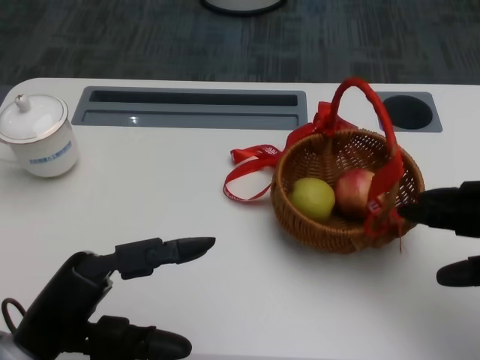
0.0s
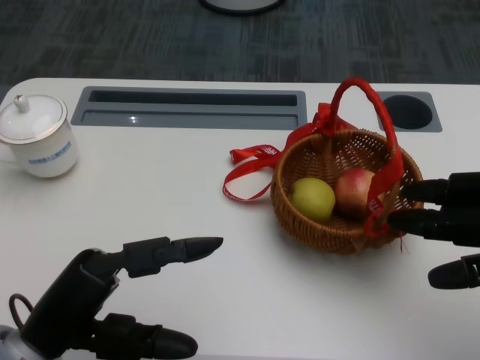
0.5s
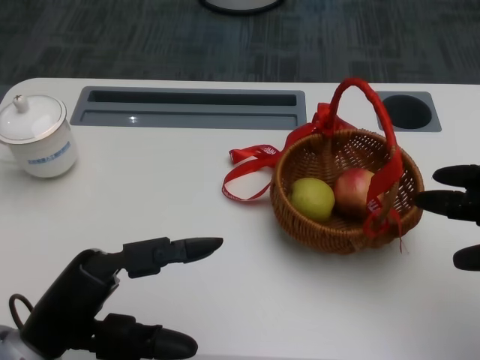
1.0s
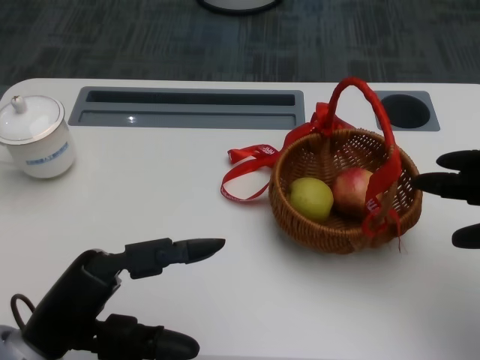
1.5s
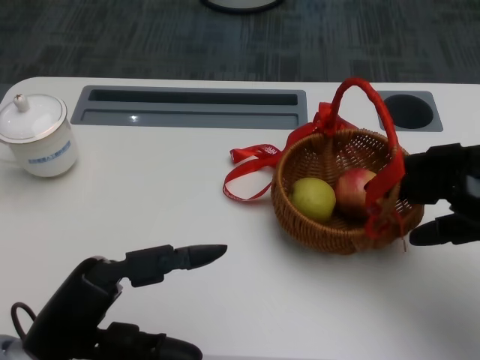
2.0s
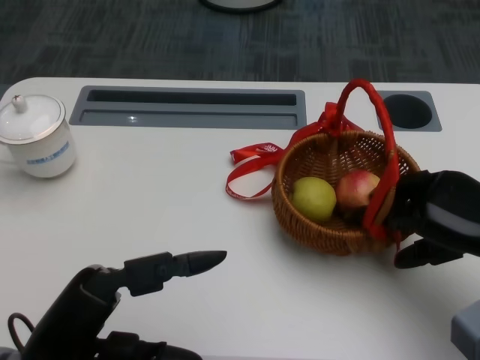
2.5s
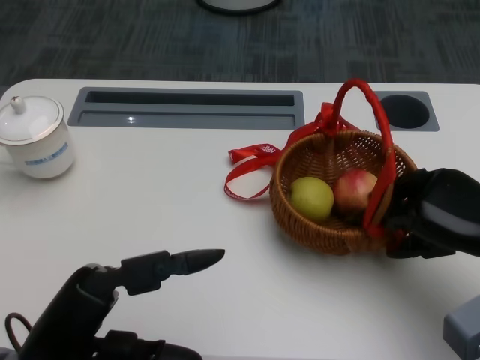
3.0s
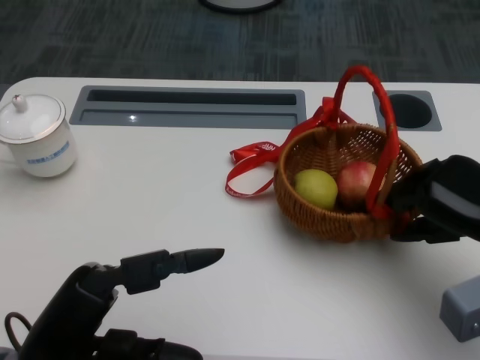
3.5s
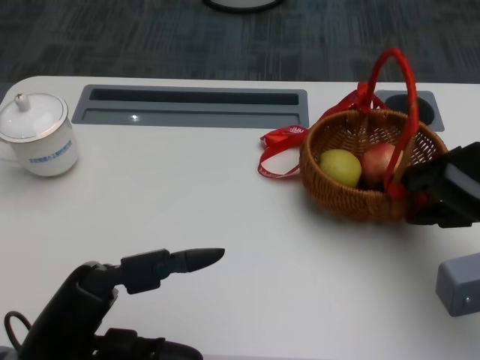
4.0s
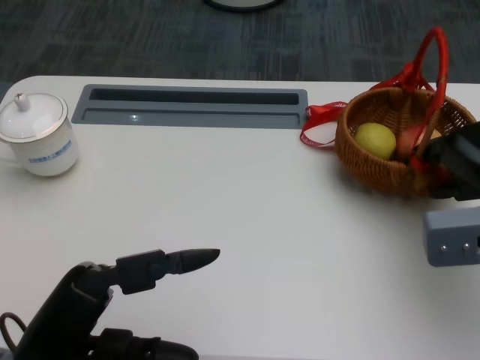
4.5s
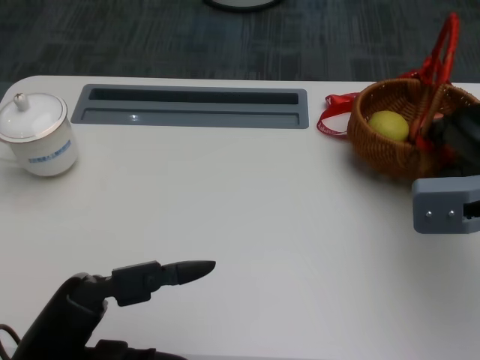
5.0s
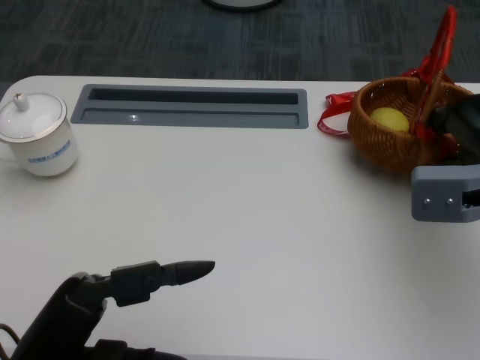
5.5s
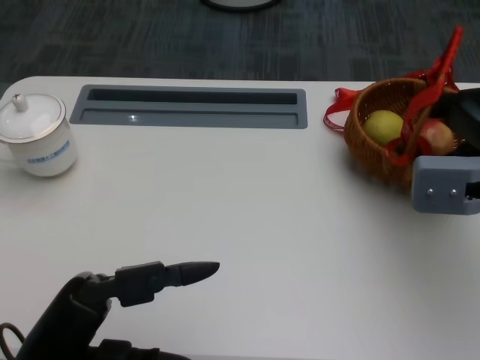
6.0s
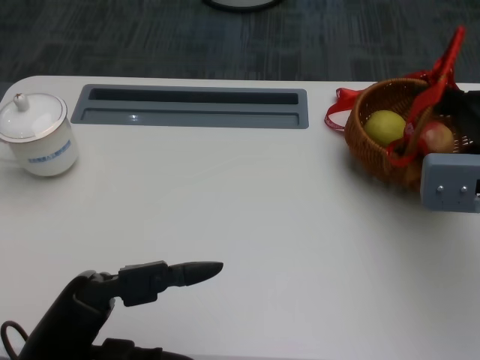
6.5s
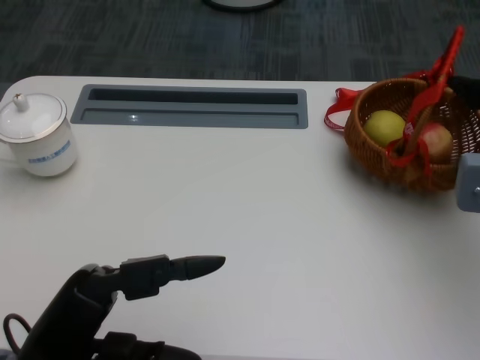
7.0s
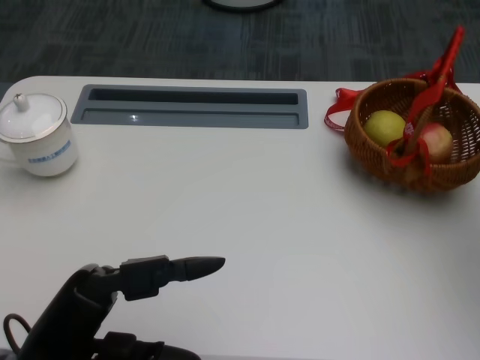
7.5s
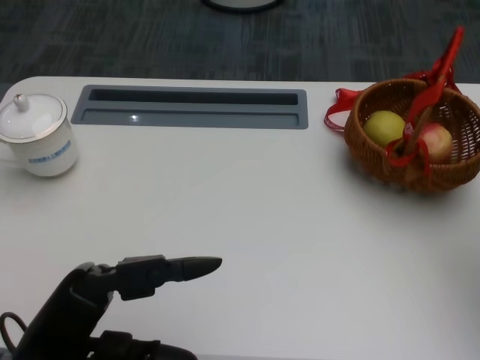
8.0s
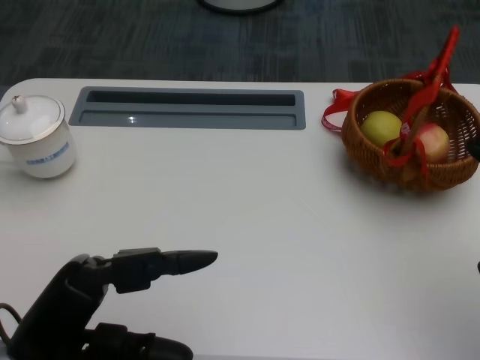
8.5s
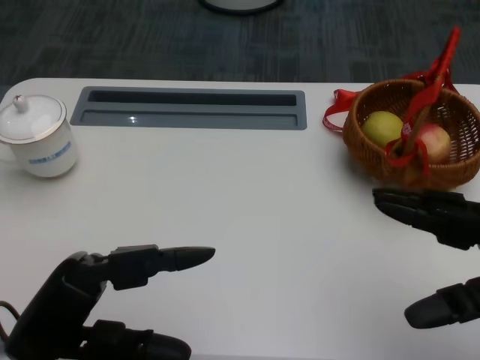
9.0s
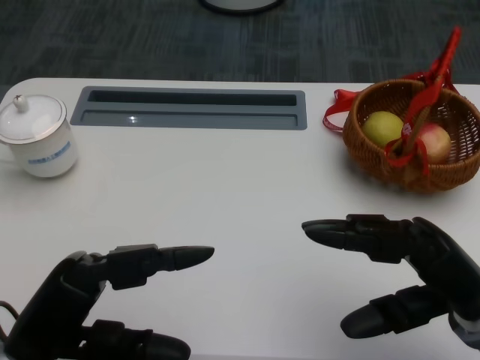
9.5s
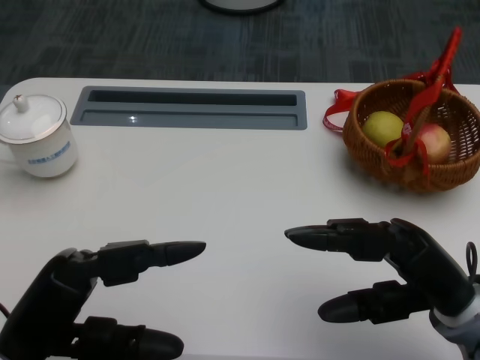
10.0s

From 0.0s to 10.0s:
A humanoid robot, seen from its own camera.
Step, from 0.5s to 2.0s: Move the basket to the front of the table with the right gripper.
From 0.0s to 2.0s: The right hand moves some 5 cm.
From 4.0s to 6.0s: The right hand moves roughly 5 cm.
From 6.0s to 8.0s: The right hand shifts roughly 10 cm to the right and backward.
From 8.0s to 10.0s: The right hand heads to the left and downward, covering approximately 15 cm.

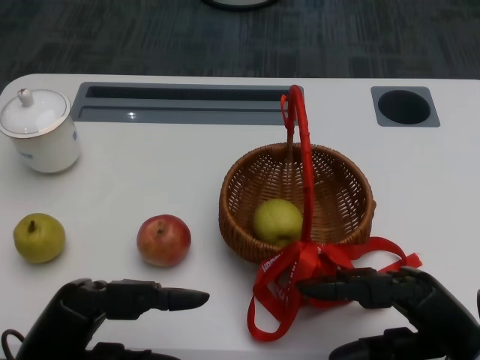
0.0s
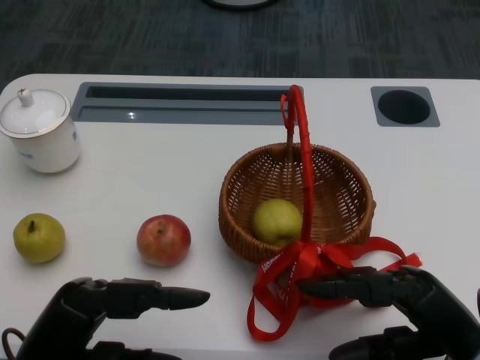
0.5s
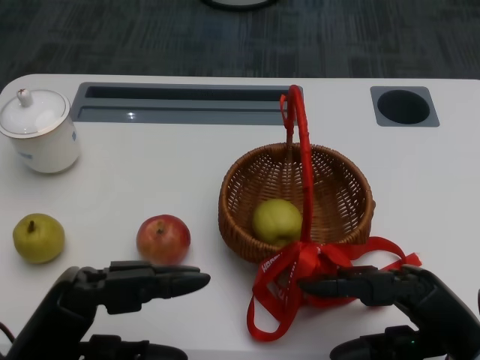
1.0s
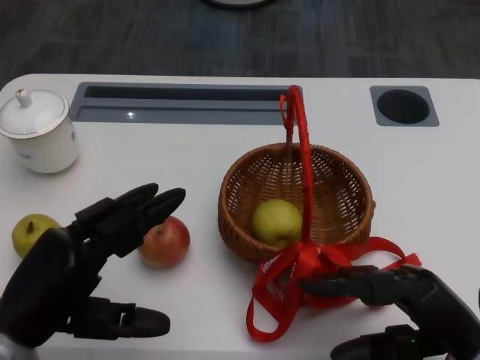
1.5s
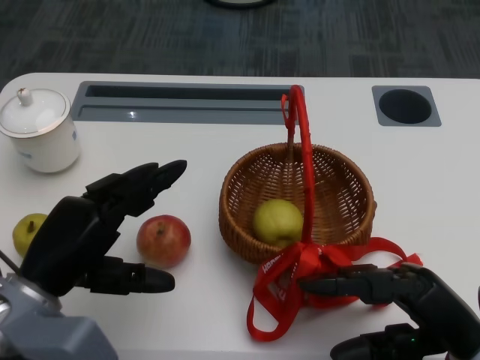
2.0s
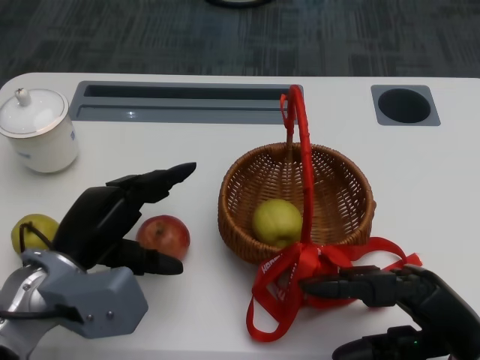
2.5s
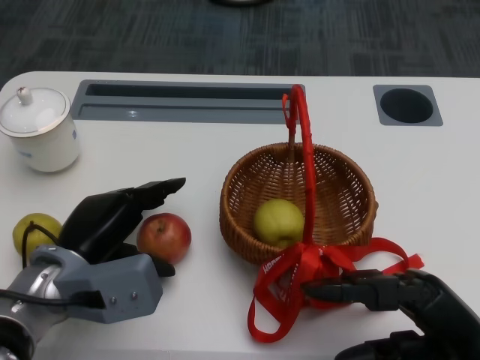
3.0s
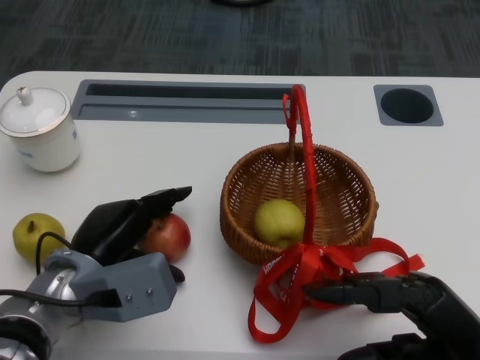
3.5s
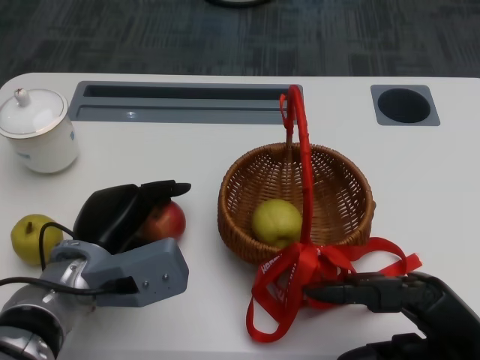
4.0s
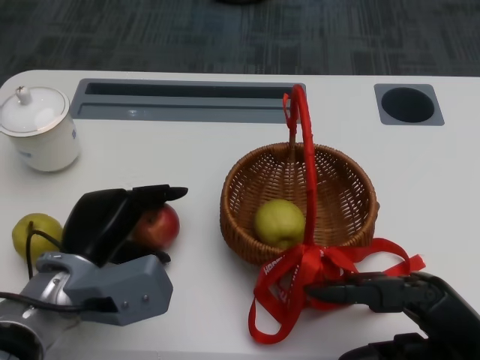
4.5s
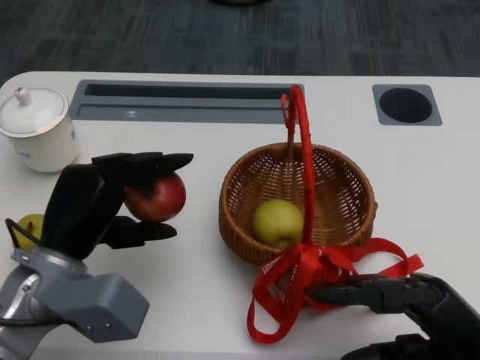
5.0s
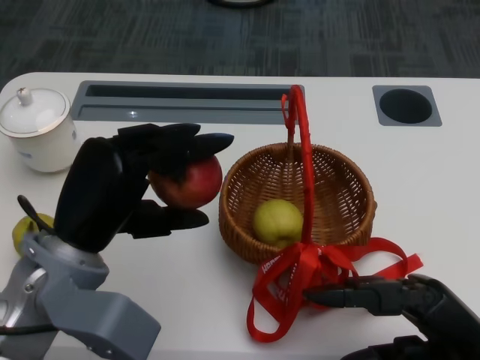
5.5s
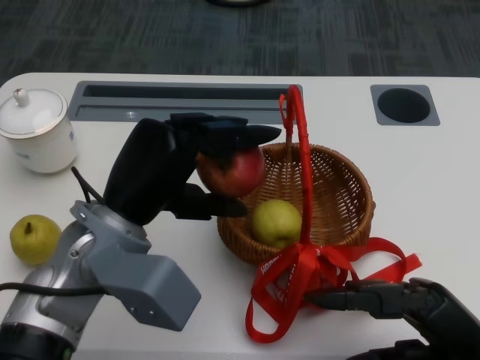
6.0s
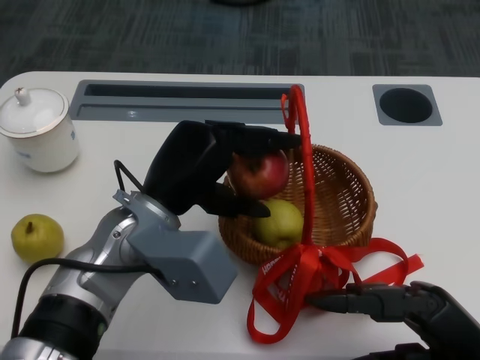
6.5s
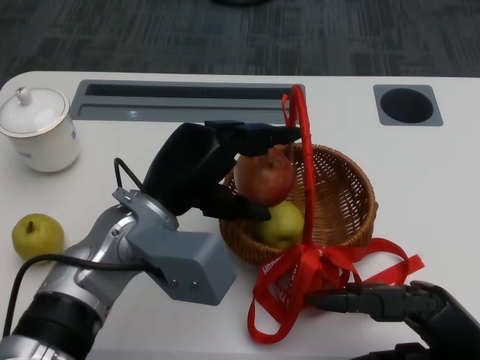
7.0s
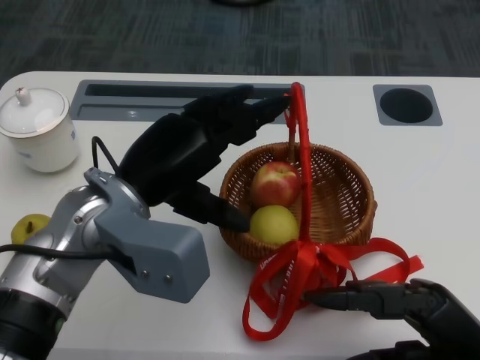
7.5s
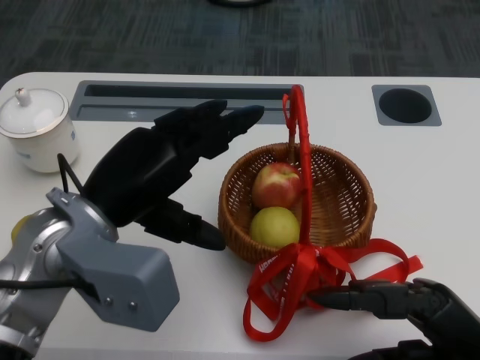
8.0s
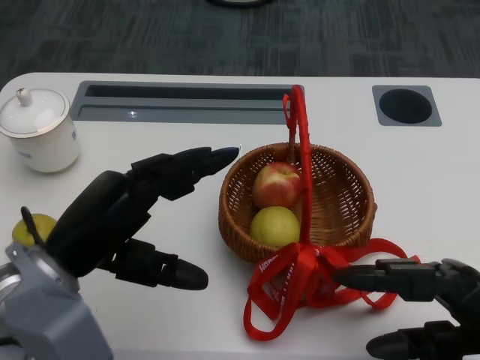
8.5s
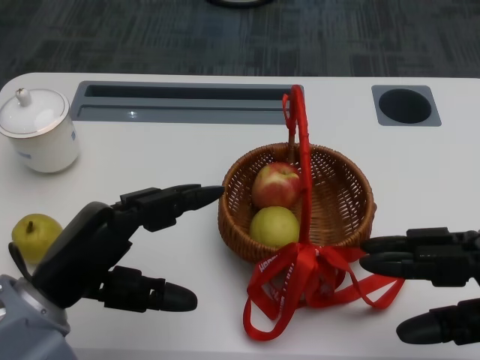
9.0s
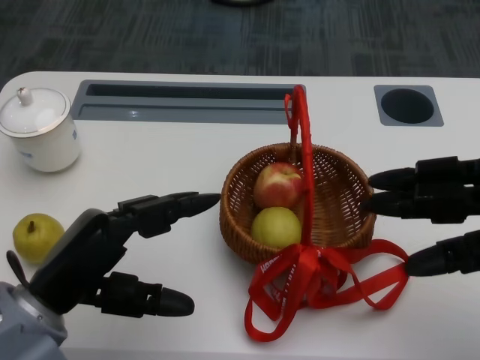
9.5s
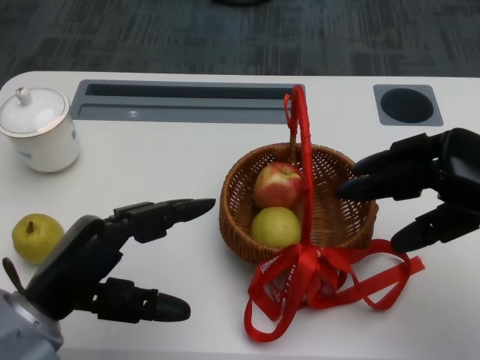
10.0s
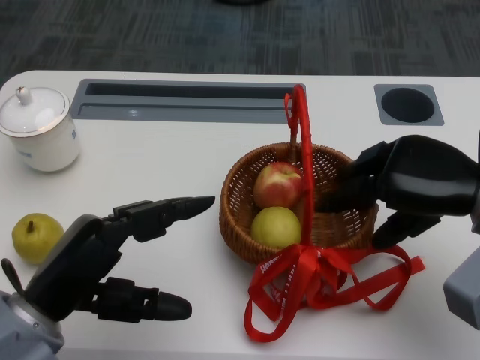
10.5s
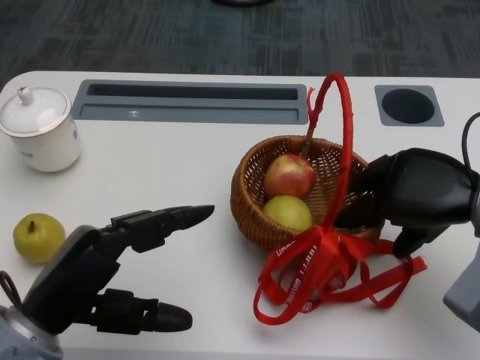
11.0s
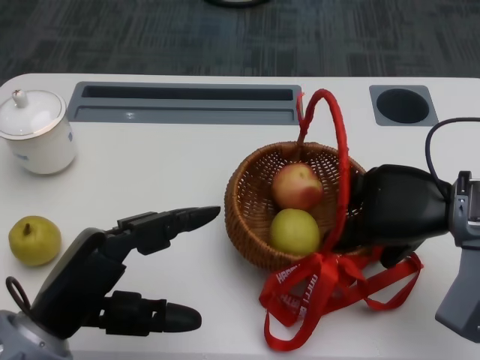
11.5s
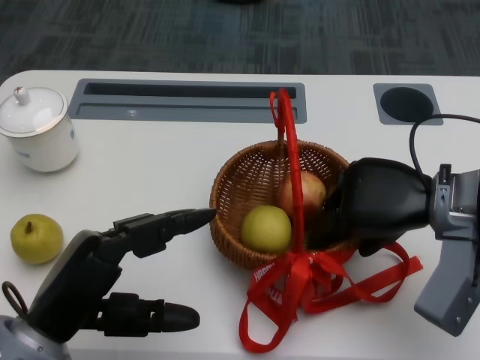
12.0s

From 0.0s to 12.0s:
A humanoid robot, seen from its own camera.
Step, from 1.0s to 3.0s: Grasp the apple with the left gripper.
Step, from 3.5s to 5.5s: Place the apple into the basket with the left gripper.
Step, from 6.0s to 9.0s: Grasp the basket with the right gripper.
From 2.0s to 4.0s: The left hand moves forward and to the right, roughly 10 cm.
From 4.0s to 6.0s: The left hand heads upward, covering some 10 cm.
From 8.0s to 10.0s: The right hand goes approximately 15 cm forward and upward, while the left hand moves downward and backward, roughly 10 cm.
From 10.0s to 12.0s: The right hand travels to the left by approximately 5 cm.

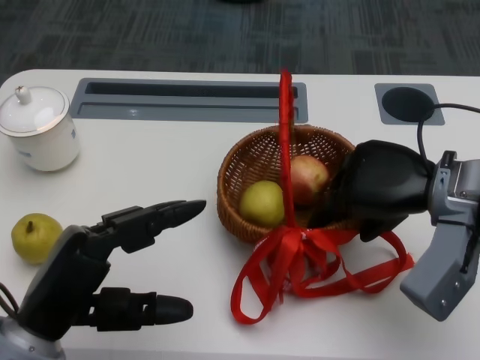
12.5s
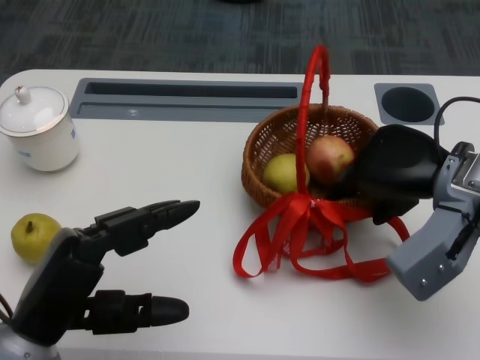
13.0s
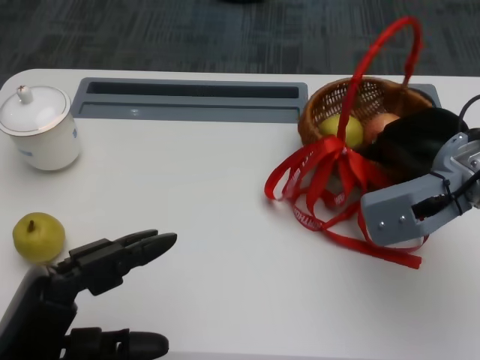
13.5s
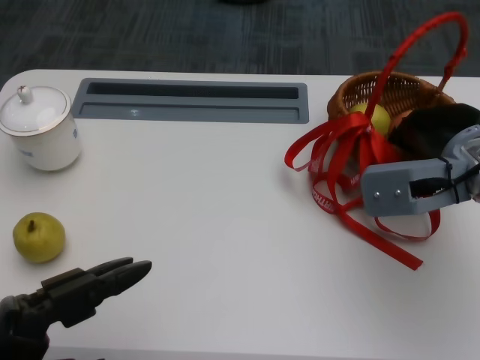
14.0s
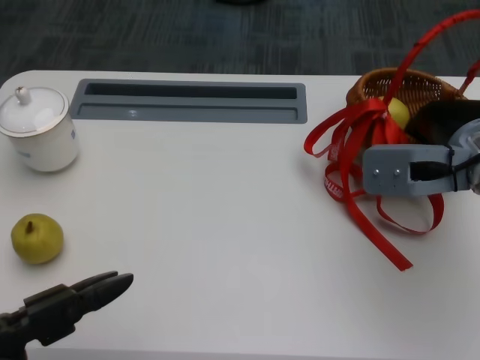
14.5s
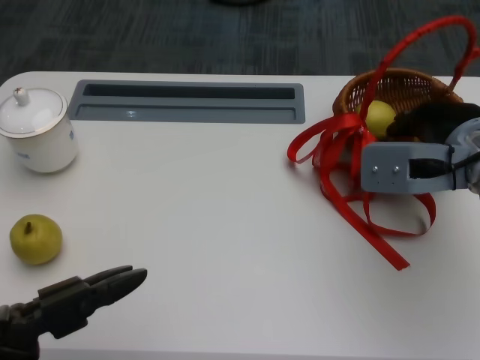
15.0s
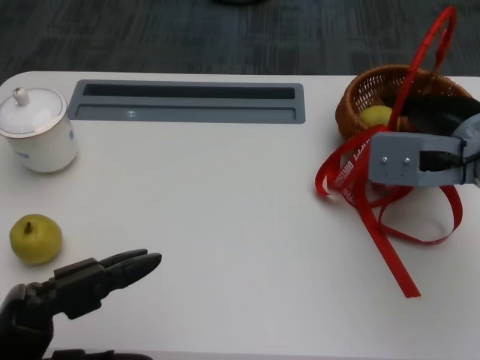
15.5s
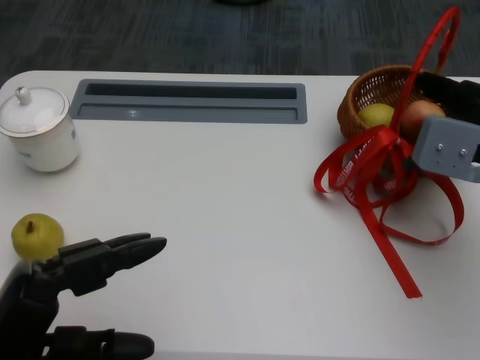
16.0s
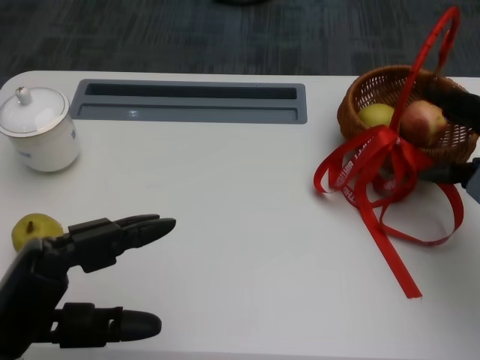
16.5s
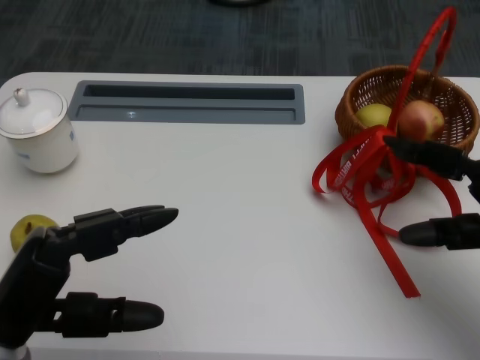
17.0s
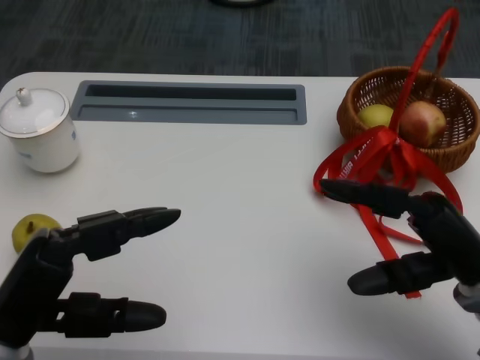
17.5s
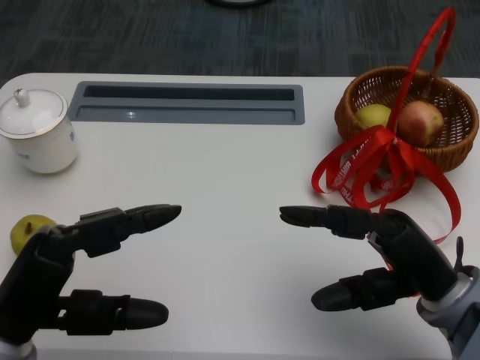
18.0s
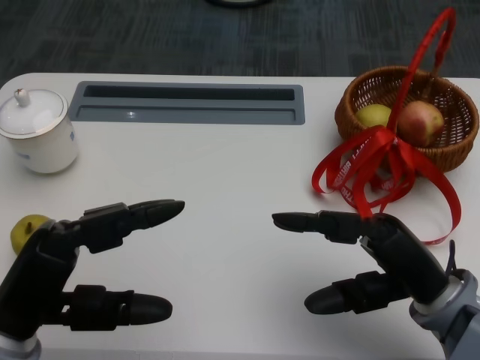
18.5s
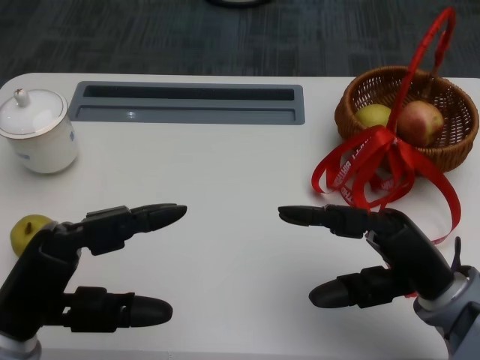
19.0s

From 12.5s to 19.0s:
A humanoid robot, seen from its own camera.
From 12.5s to 14.5s: The left hand travels backward by approximately 10 cm.
From 14.5s to 17.0s: The left hand moves forward, approximately 5 cm. The right hand heads backward and to the right, covering approximately 10 cm.
From 17.0s to 19.0s: The right hand shifts approximately 10 cm to the left.
